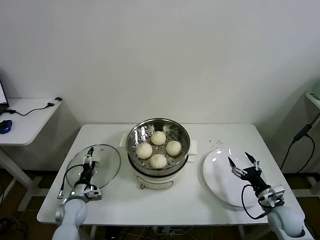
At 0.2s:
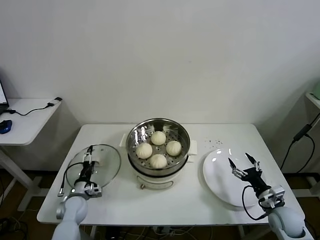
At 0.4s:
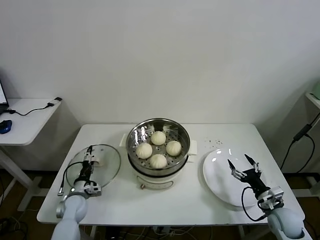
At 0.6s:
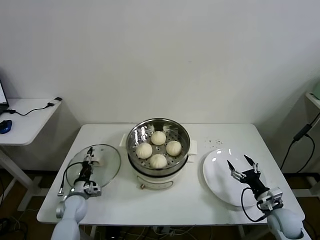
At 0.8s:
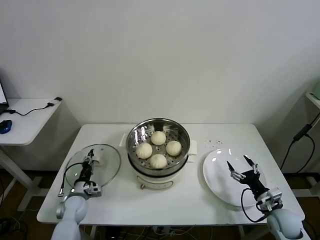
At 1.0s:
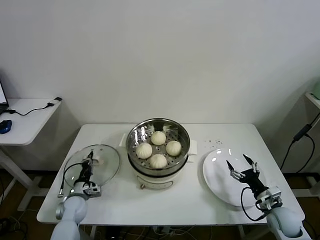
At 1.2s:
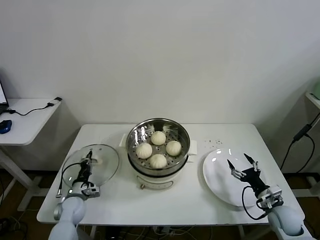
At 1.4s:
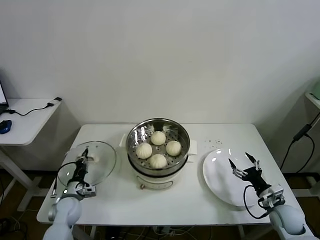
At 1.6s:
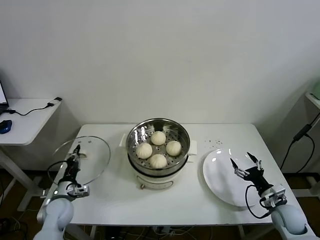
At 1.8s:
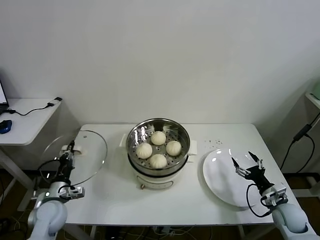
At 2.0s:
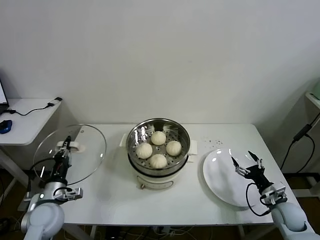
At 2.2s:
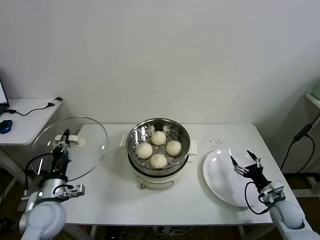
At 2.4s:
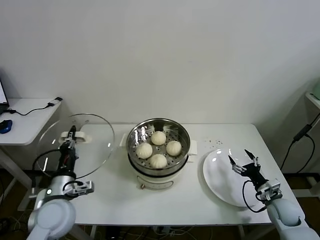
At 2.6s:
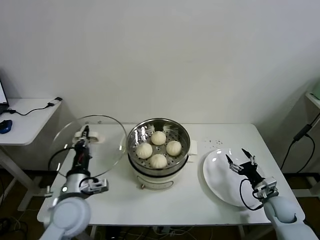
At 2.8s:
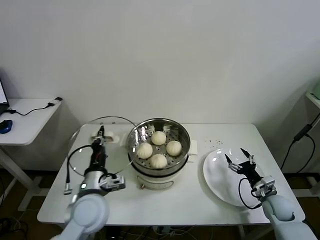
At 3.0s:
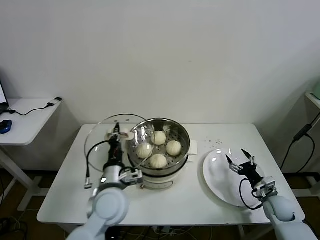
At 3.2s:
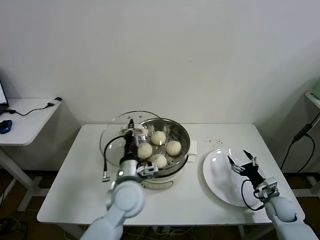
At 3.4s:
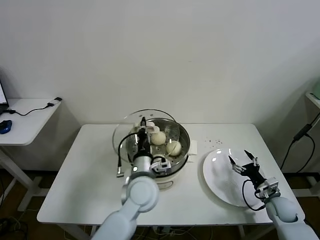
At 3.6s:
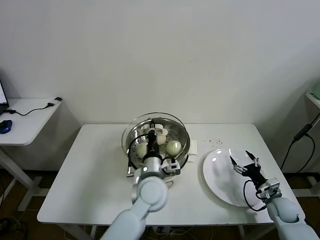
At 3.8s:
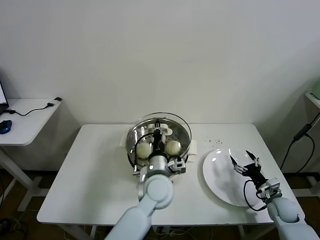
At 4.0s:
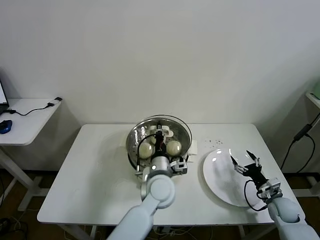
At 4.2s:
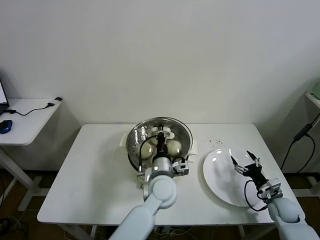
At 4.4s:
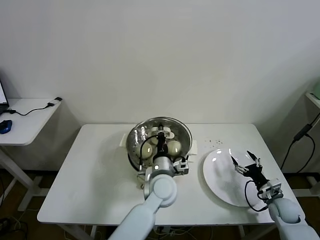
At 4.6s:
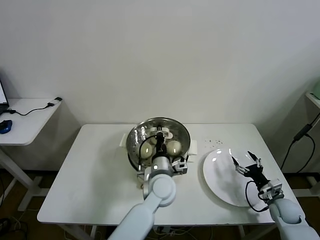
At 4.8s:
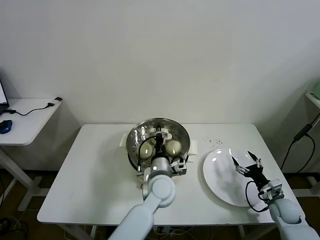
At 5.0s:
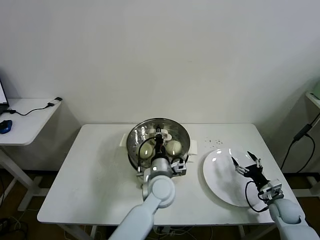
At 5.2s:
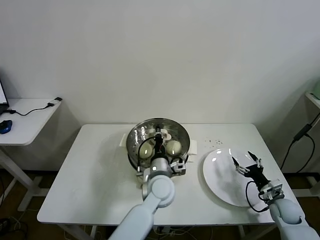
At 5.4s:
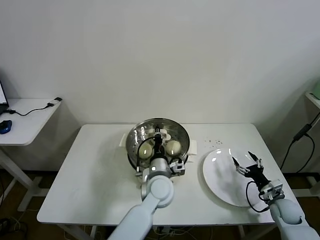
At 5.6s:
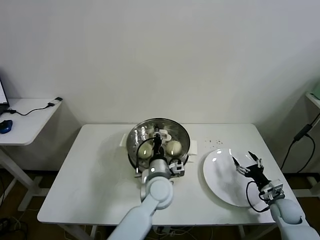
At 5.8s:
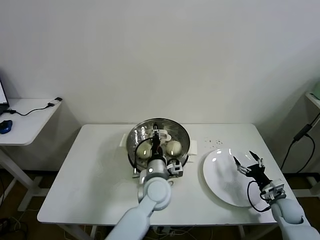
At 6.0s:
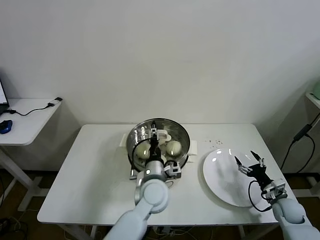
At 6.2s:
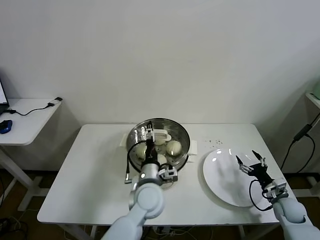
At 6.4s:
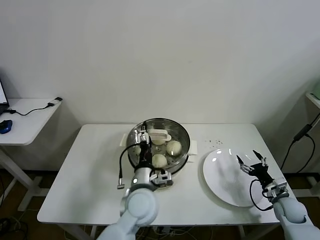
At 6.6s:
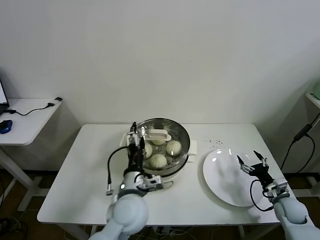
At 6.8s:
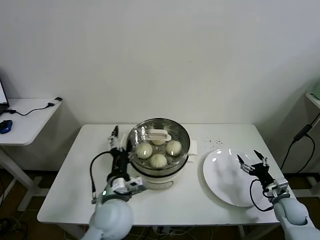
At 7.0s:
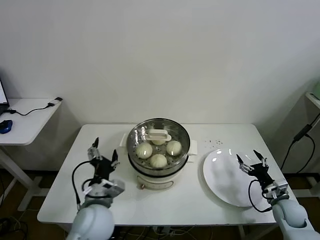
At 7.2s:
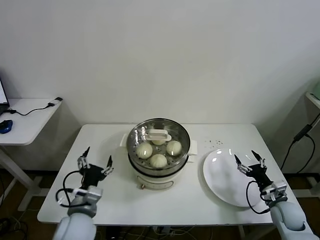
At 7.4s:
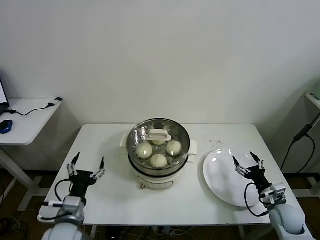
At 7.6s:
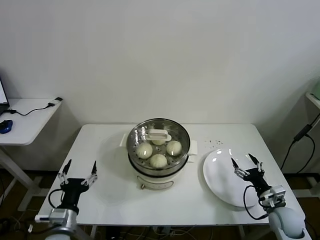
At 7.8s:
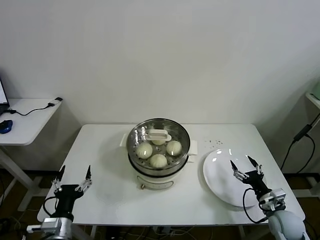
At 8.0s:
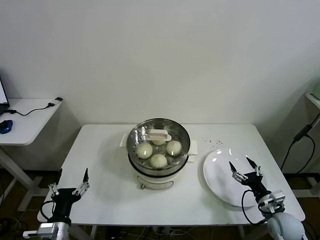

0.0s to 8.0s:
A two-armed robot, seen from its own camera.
Task of the whole recording: take steamed baozi put them in steamer then cover it.
Step, 1.2s to 6.0s: Place the pot lid on the steamer with left gripper.
0.0s to 1.6s: The left gripper closes its fingers.
1.6s to 3.2s: The right gripper ends up roughly 5 cm from where it was; the left gripper moves to the right and upward, about 30 cm.
3.2s to 4.8s: The left gripper is displaced to the right by roughly 10 cm.
4.8s to 6.4s: The left gripper ends up roughly 5 cm from where it was, and opens up.
6.4s to 8.0s: The left gripper heads to the left and backward, covering some 30 cm. Meanwhile the right gripper goes approximately 10 cm to the left and backward.

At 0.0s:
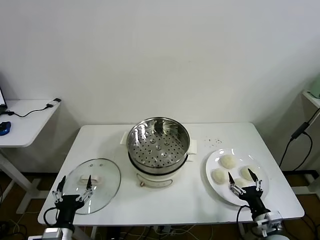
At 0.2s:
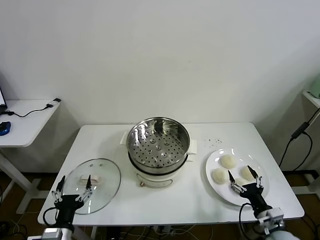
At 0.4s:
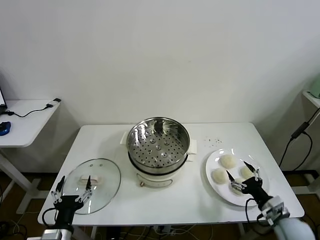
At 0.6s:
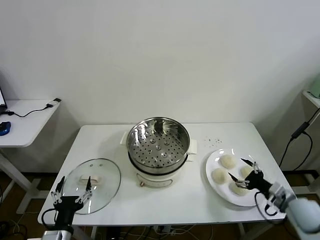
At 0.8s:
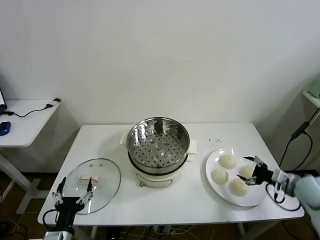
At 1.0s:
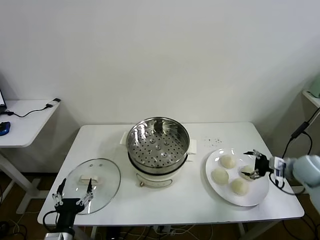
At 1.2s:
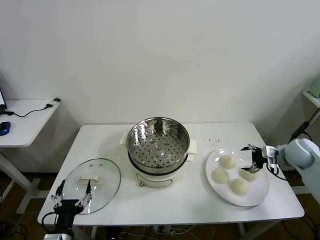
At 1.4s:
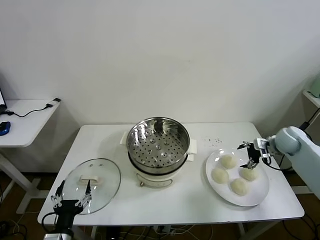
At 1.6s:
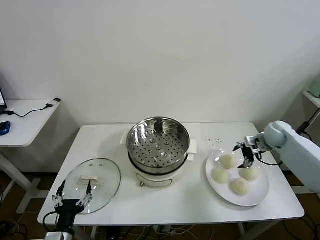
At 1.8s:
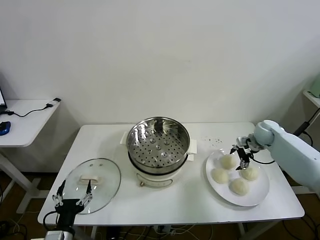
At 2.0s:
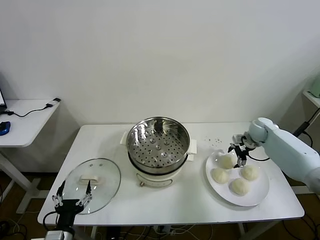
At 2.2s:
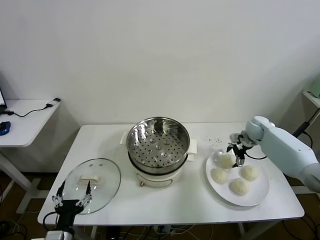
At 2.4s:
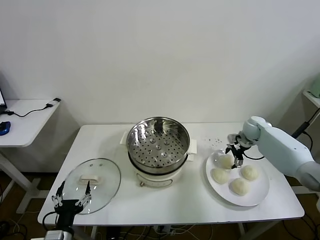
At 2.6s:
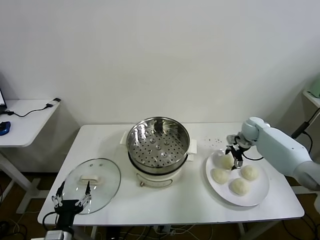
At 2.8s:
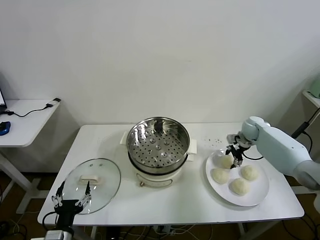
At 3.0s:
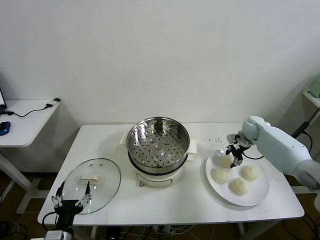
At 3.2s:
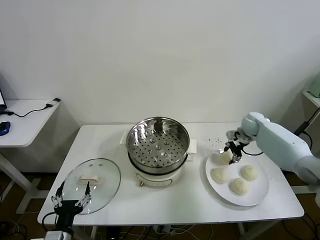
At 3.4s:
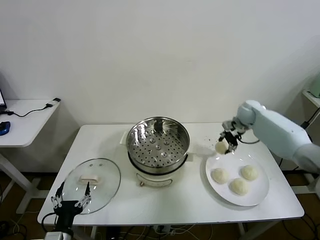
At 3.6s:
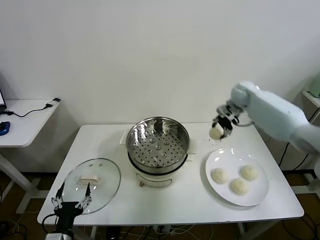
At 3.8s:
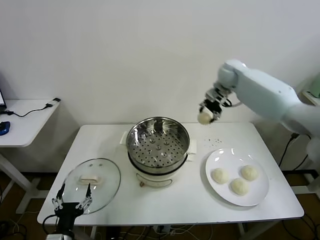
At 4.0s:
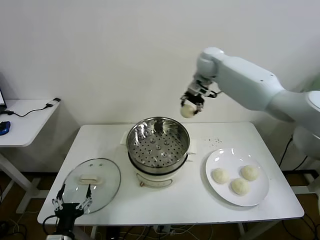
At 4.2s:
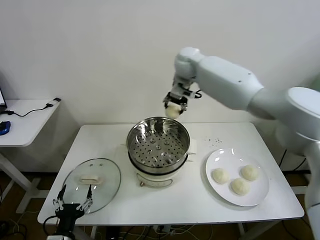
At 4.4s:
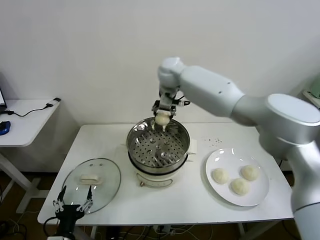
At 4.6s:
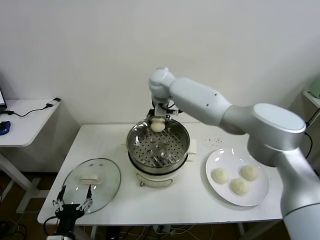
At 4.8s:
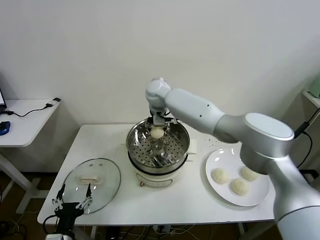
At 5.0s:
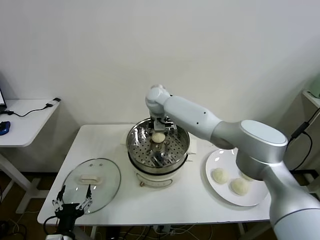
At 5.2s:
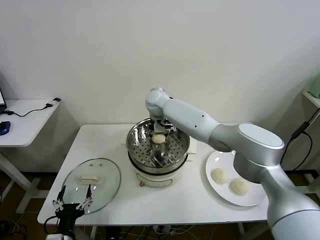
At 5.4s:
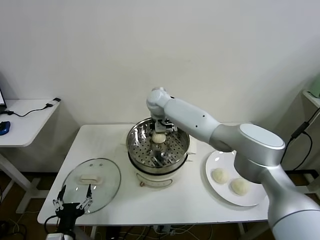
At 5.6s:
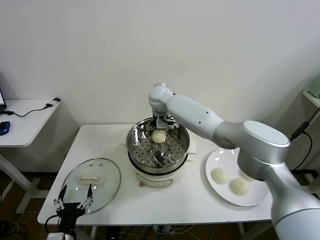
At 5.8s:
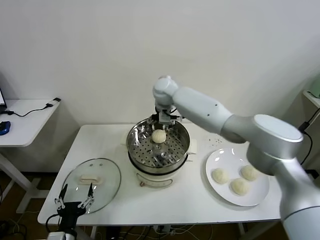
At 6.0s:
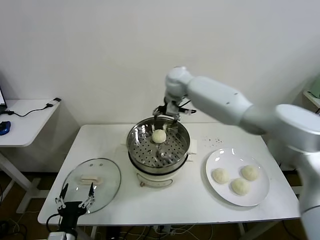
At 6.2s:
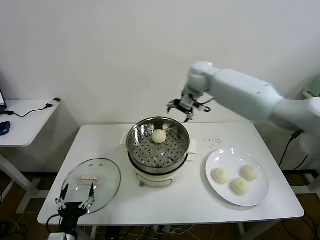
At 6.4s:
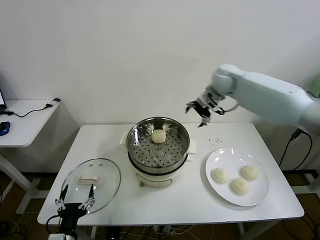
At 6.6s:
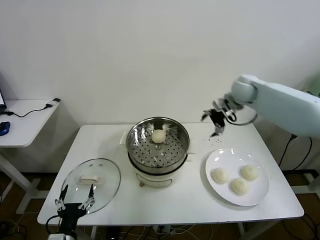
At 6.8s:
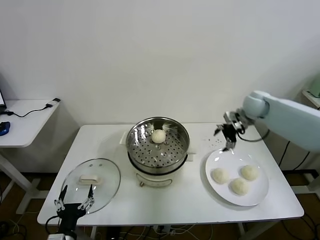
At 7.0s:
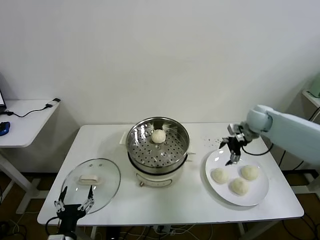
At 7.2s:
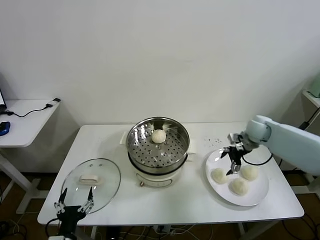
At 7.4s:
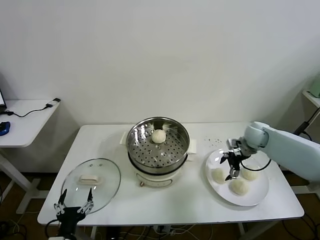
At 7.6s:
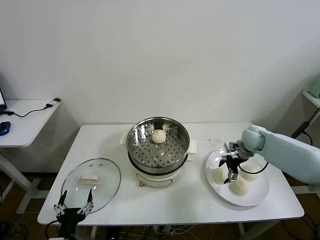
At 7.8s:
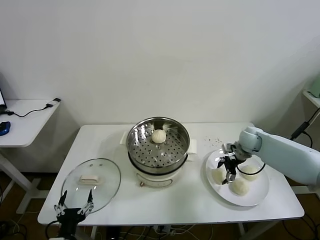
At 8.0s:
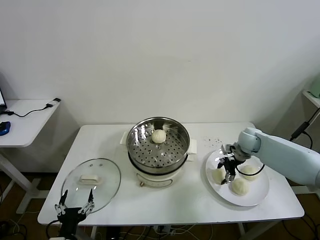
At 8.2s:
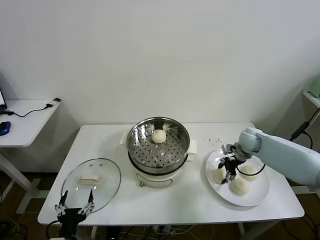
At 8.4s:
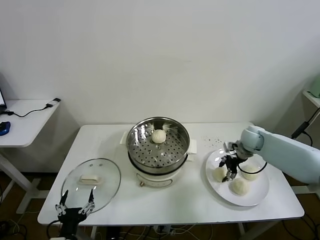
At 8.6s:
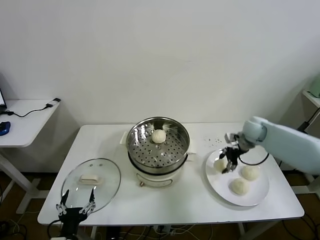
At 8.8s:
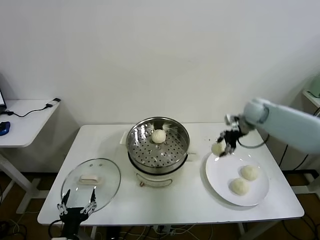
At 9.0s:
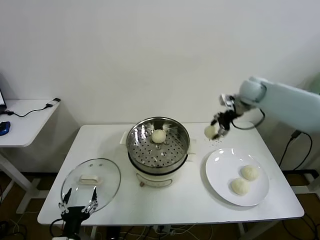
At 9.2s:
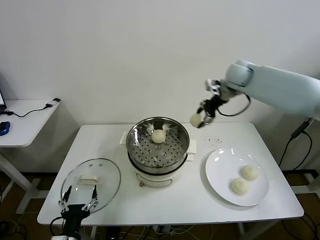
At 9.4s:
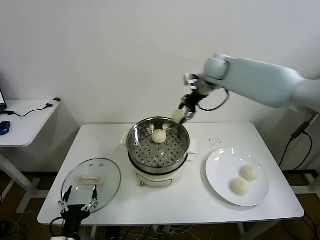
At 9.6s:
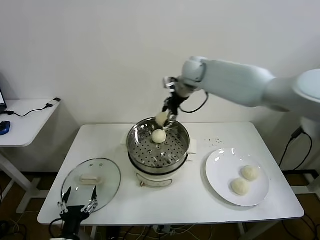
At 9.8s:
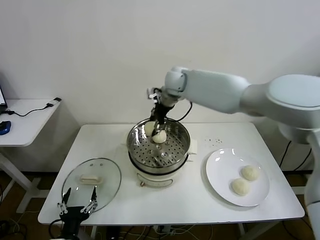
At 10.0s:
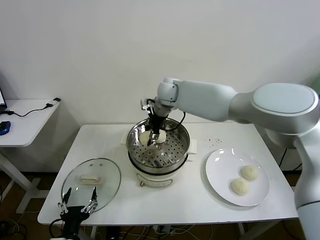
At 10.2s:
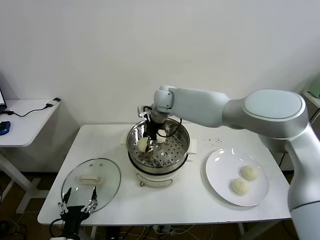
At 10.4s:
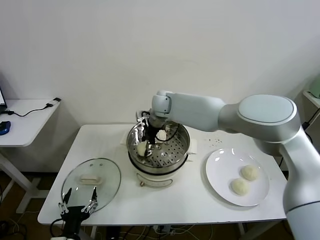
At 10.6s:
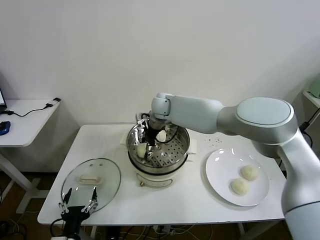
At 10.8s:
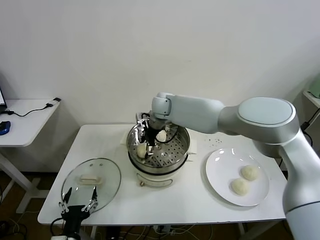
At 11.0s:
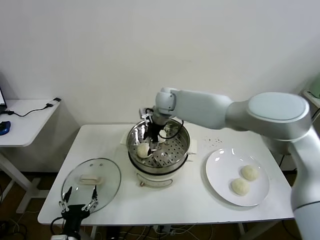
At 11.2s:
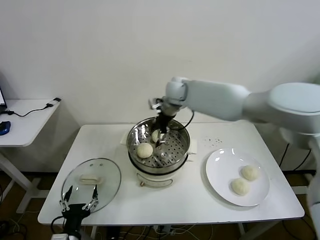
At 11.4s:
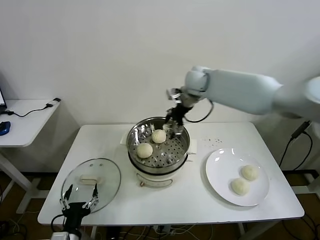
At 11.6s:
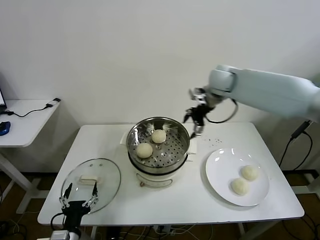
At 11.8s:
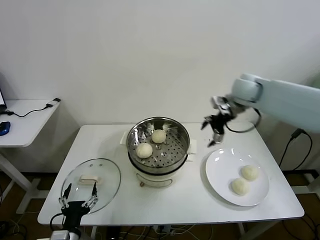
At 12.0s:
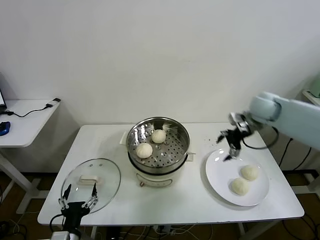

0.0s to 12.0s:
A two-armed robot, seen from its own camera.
Task of the whole recording: take steamed baozi put them in steamer then cover it.
Step, 0.0s to 2.8s: Grasp the baozi in the plate with right gripper.
Step, 3.0s to 5.8s: Place the baozi on the steamer with right gripper.
Step, 6.0s to 8.4s: Grasp the baozi in the plate with right gripper.
Step, 8.6s to 11.0s: Place the baozi on the steamer with right gripper.
1.6s to 3.0s: The right gripper travels forward by some 5 cm, and closes up.
3.0s to 4.4s: The right gripper travels to the left and upward by about 40 cm.
4.4s to 6.0s: The right gripper heads to the right, covering roughly 10 cm, and opens up.
6.0s to 7.6s: The right gripper shifts approximately 35 cm to the right and downward.
7.6s to 9.0s: The right gripper is displaced upward by roughly 20 cm, and closes up.
9.0s to 10.4s: The right gripper is displaced to the left by approximately 30 cm.
10.4s to 12.0s: The right gripper shifts roughly 35 cm to the right, and opens its fingers.

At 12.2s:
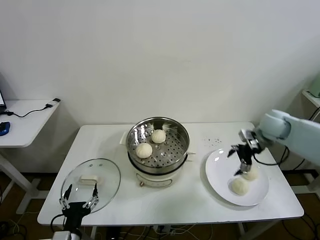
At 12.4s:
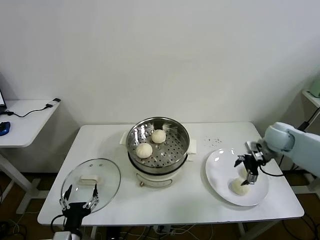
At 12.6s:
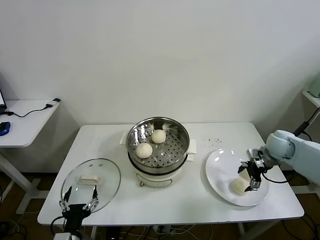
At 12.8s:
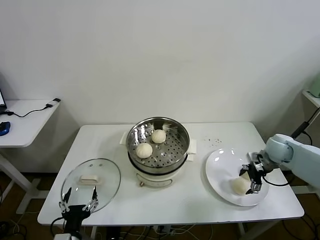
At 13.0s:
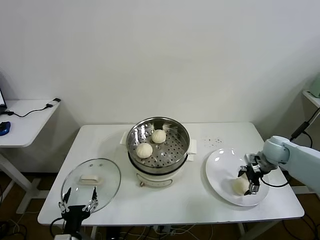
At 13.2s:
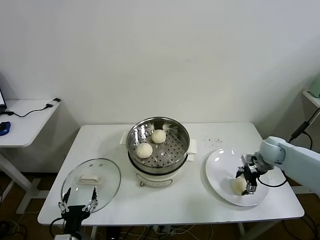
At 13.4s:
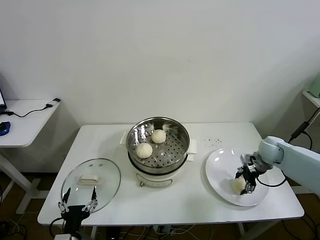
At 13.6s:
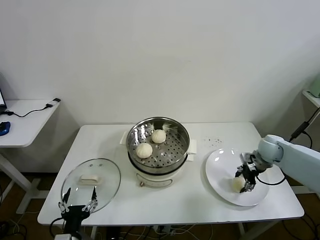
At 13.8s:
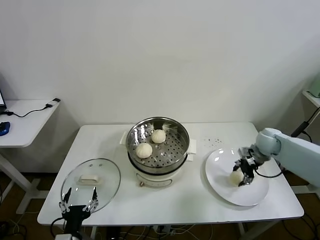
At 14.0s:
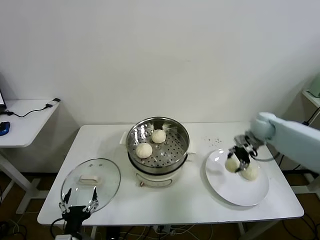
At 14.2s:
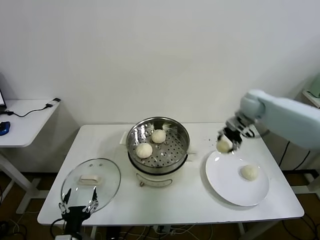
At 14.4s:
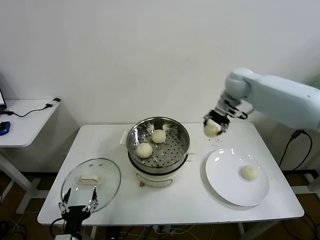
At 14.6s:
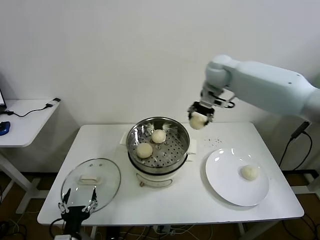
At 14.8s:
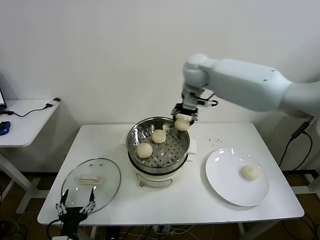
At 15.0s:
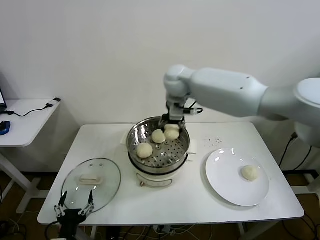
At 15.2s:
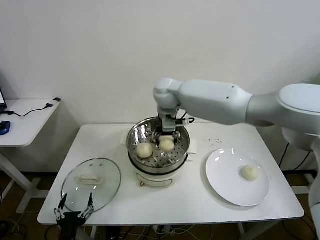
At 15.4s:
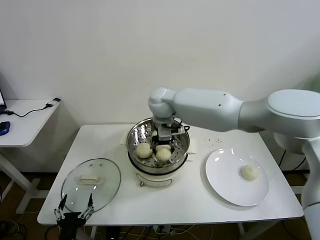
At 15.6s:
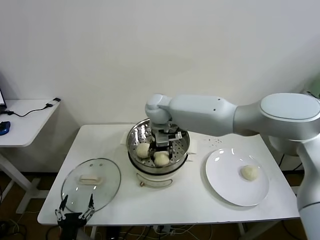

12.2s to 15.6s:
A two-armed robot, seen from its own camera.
Task of the whole recording: take steamed baozi put them in steamer then cover it.
Step, 12.2s to 13.4s: Grasp the baozi in the plate with right gripper.
12.2s to 13.8s: The right gripper goes some 5 cm downward, and closes up.
13.8s to 15.6s: The right gripper heads to the left, covering roughly 40 cm.
